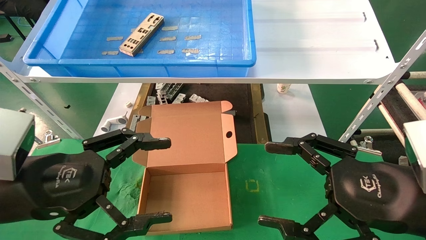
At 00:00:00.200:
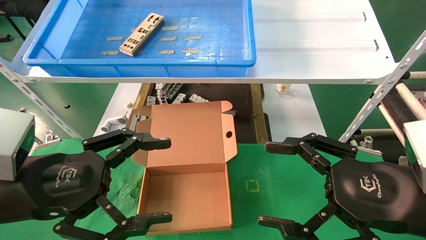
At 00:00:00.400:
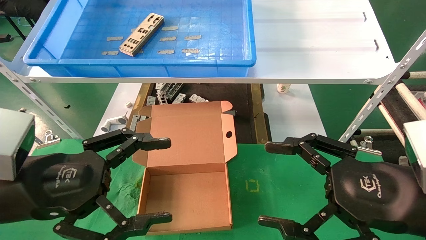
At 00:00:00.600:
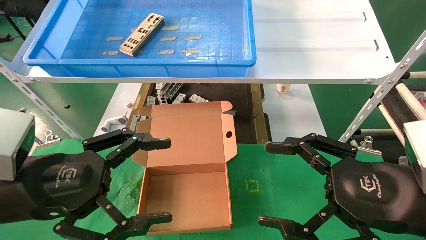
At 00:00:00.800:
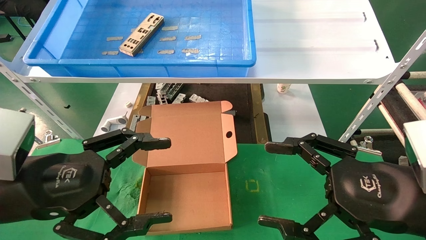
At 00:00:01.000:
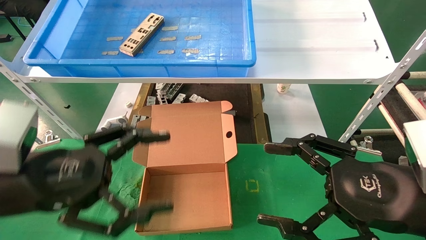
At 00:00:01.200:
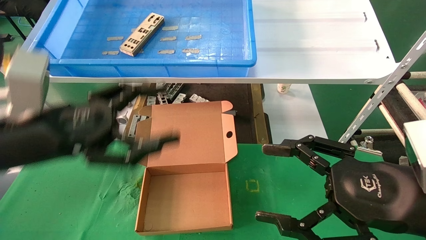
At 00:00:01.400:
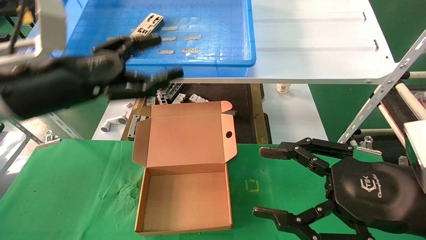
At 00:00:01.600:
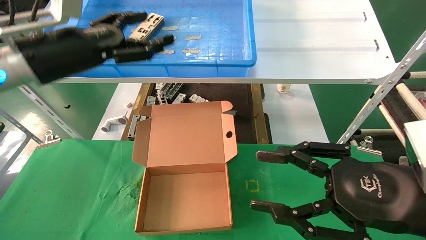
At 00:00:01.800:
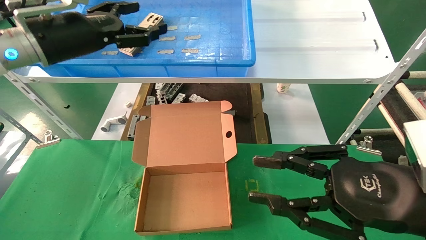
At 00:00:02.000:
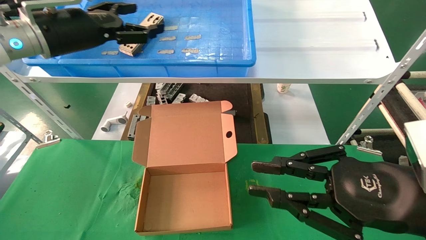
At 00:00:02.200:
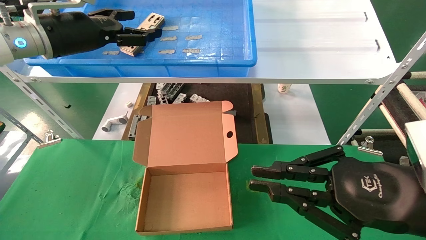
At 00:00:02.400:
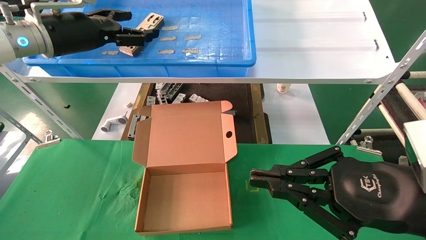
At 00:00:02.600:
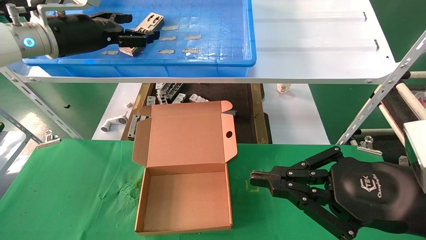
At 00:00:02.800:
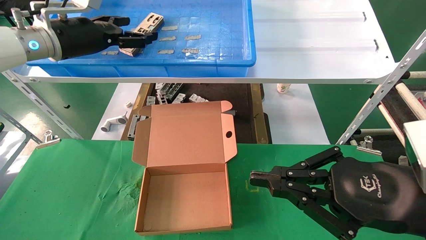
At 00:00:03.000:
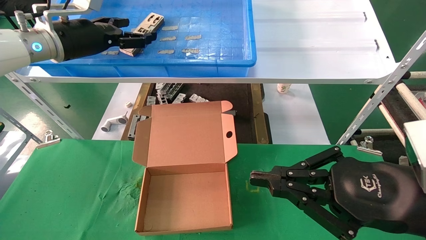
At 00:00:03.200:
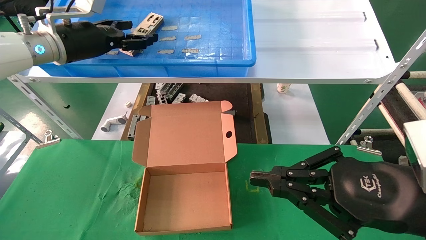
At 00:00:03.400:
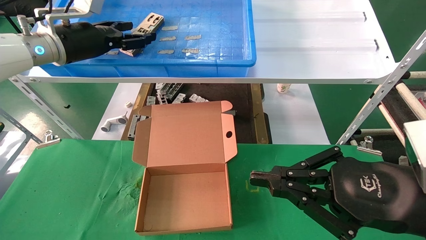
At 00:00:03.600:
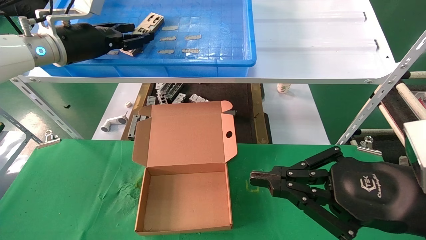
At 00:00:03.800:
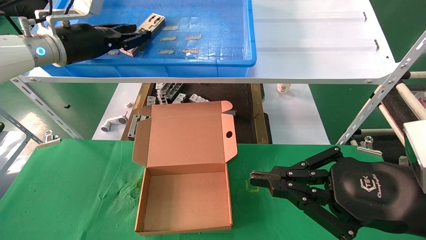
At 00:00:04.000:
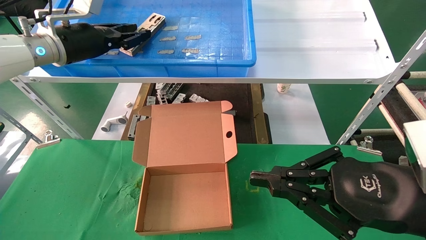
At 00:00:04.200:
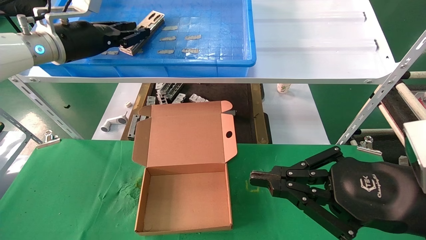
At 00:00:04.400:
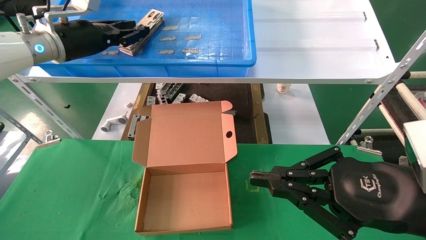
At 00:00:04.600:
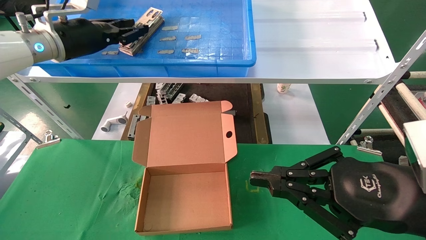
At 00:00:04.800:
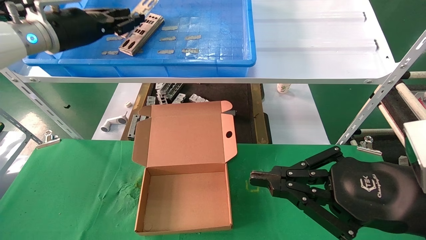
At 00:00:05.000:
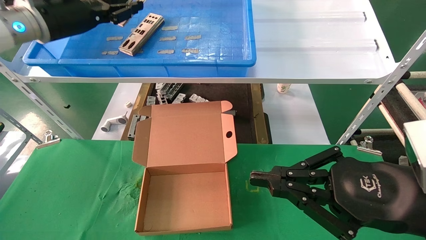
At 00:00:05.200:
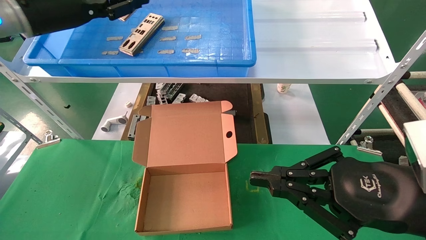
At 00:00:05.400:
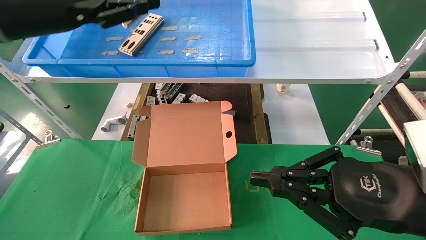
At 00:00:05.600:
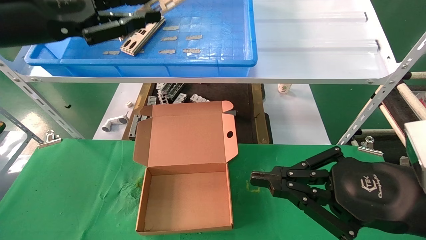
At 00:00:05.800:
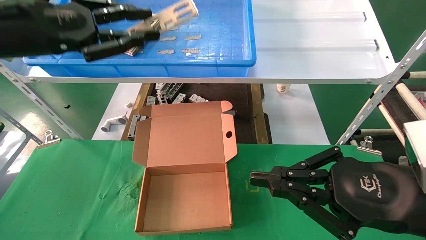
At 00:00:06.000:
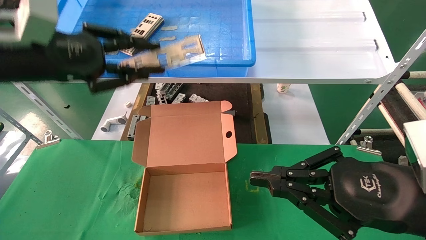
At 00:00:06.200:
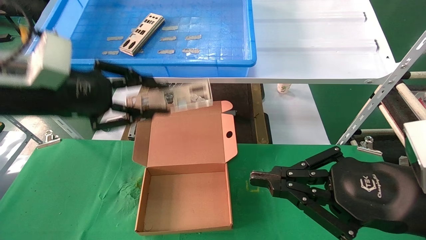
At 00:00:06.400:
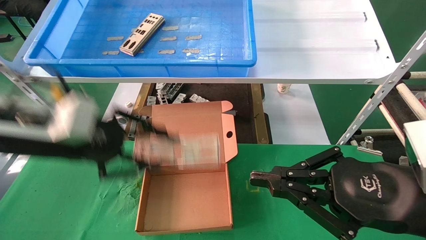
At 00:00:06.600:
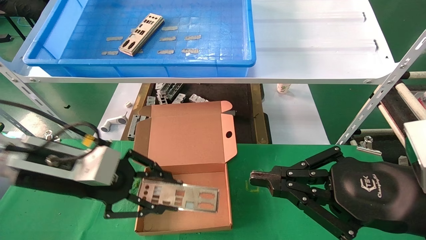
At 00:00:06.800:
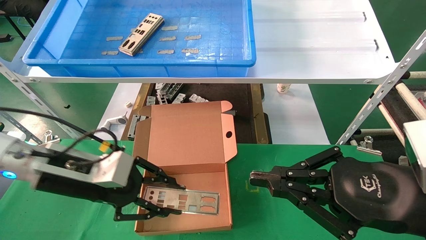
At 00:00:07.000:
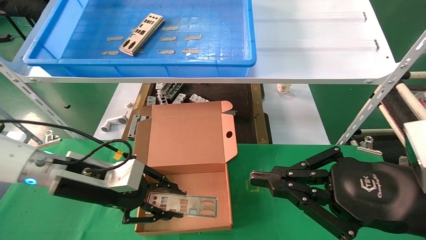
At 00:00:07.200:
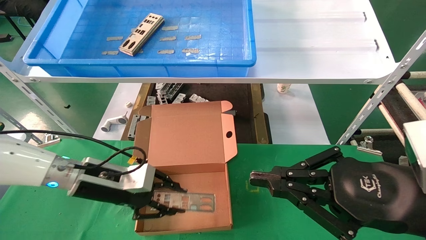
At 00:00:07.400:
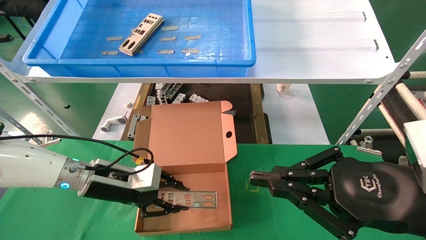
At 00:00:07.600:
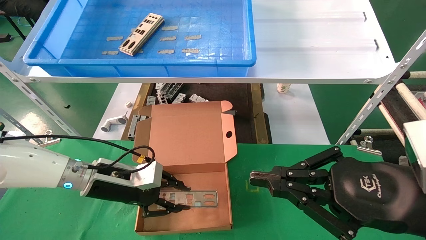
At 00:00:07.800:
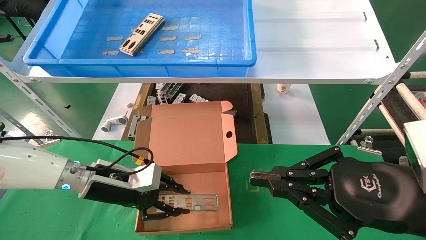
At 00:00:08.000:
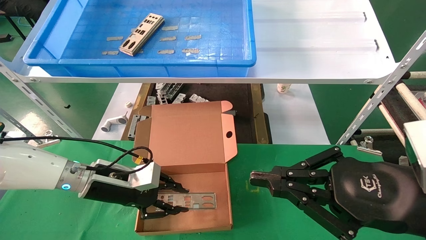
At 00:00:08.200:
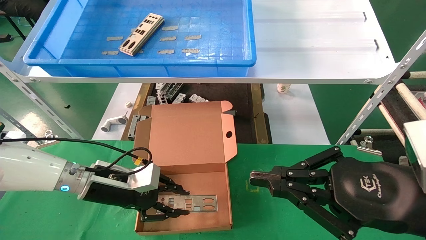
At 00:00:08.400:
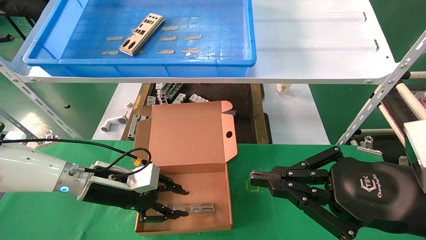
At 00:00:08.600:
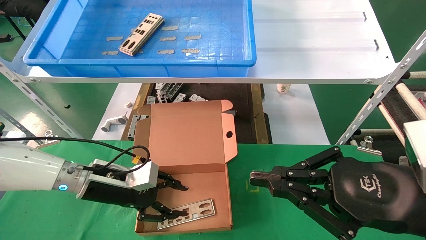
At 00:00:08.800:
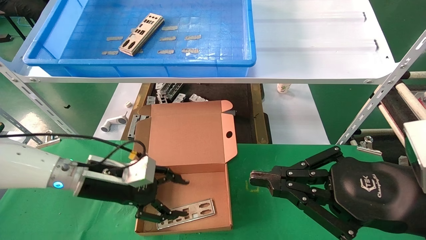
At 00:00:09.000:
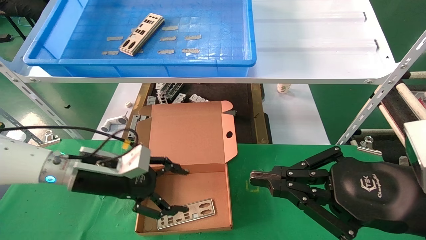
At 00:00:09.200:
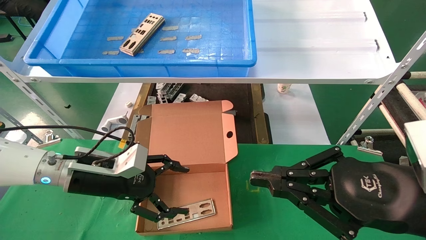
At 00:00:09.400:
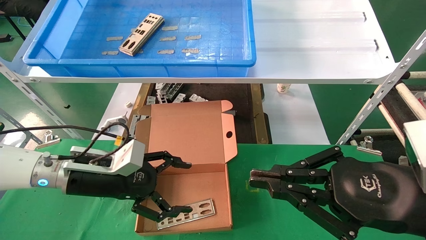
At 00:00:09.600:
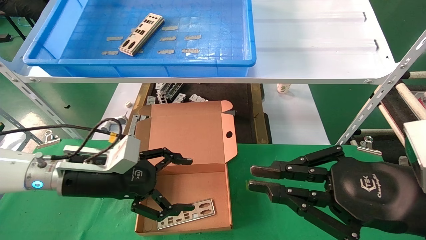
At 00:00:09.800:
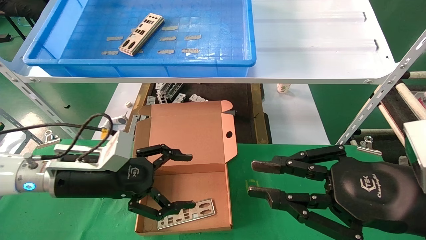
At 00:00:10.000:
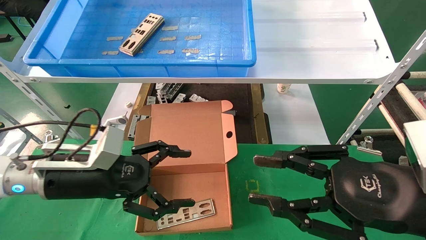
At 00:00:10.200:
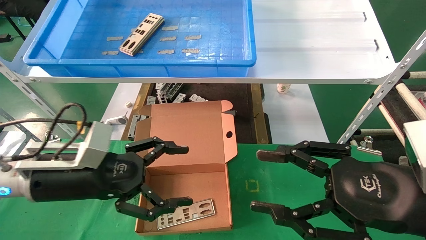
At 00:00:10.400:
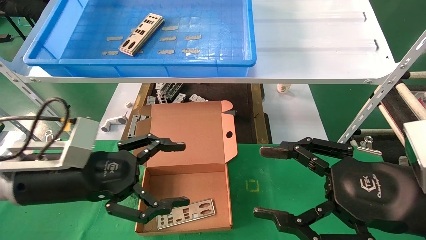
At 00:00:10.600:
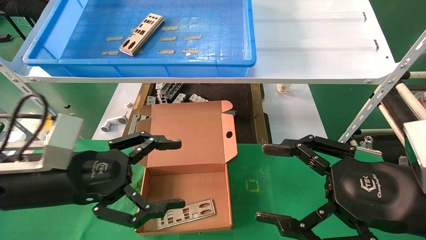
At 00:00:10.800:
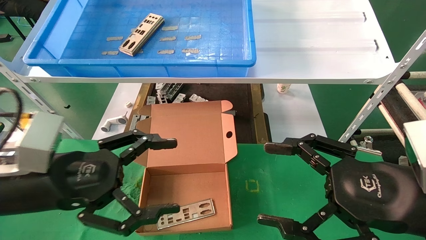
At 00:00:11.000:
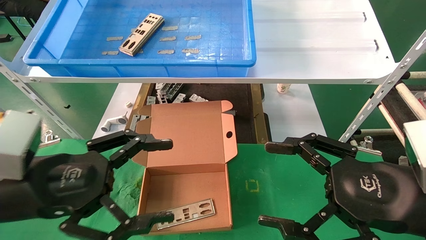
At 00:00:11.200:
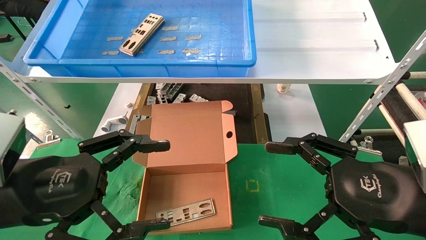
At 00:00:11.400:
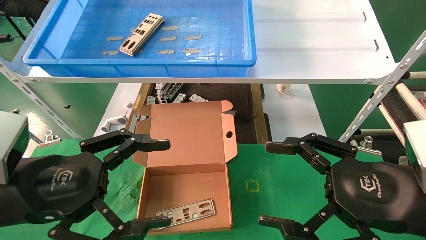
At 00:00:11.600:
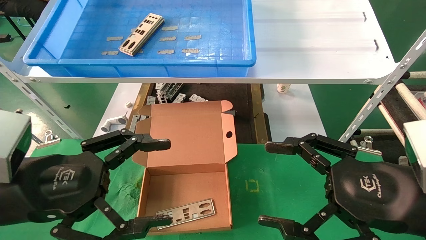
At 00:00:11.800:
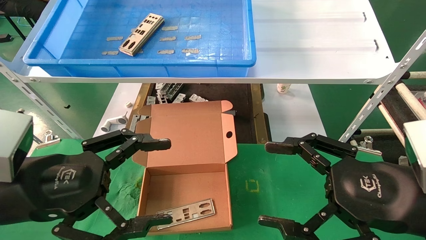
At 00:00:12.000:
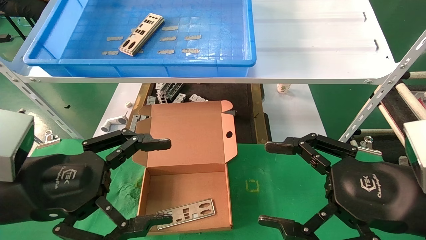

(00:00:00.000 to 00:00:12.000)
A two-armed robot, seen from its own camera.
Task of the whole recording: pick up the parts on the tray and put them in the cardboard box.
Step, 00:00:01.400 - 00:00:04.400: Pick up the IO bracket from the container box.
Step, 00:00:04.600 - 00:00:08.600: Place the IO bracket into the ingredient slot.
00:00:00.000 - 00:00:01.600: The left gripper travels forward and upward by approximately 20 cm.
00:00:01.600 - 00:00:03.000: The right gripper closes; the left gripper goes some 10 cm forward.
00:00:03.000 - 00:00:04.400: The left gripper closes.
00:00:04.400 - 00:00:06.000: The left gripper is displaced backward by approximately 15 cm.
00:00:06.000 - 00:00:07.600: The left gripper heads downward, covering about 25 cm.
00:00:07.600 - 00:00:09.000: The left gripper opens.
00:00:09.000 - 00:00:10.400: The left gripper moves backward, approximately 10 cm, and opens up, while the right gripper opens its fingers.
00:00:10.400 - 00:00:12.000: The right gripper opens up. Meanwhile the left gripper heads backward, covering some 5 cm.

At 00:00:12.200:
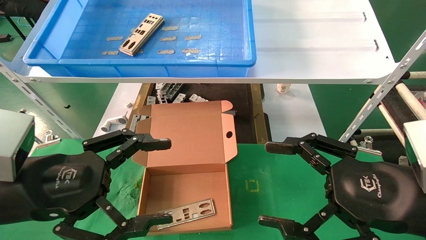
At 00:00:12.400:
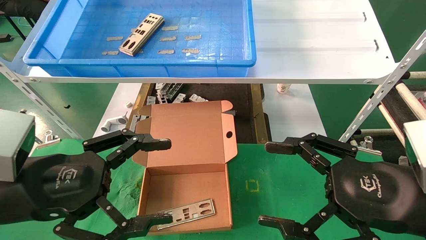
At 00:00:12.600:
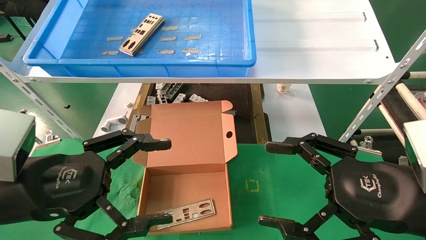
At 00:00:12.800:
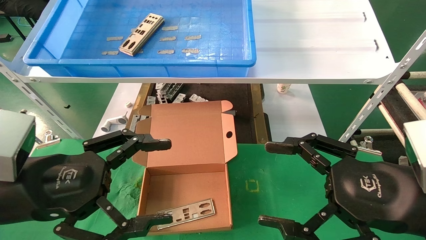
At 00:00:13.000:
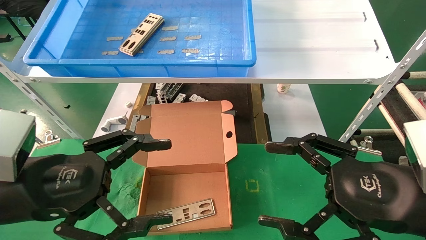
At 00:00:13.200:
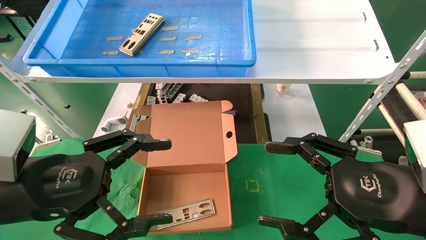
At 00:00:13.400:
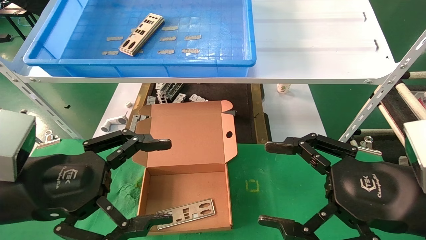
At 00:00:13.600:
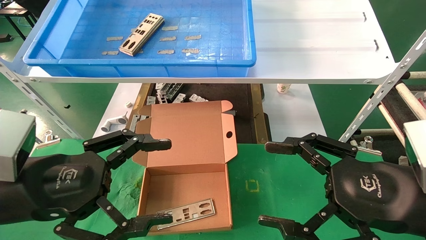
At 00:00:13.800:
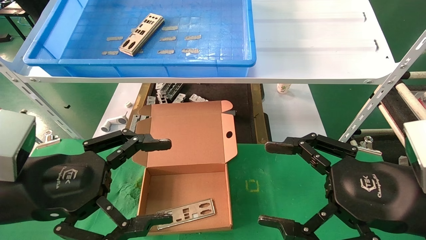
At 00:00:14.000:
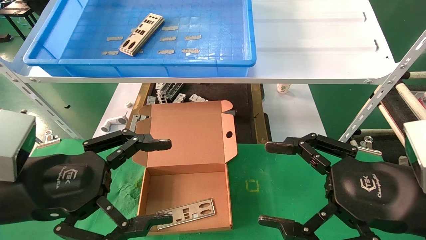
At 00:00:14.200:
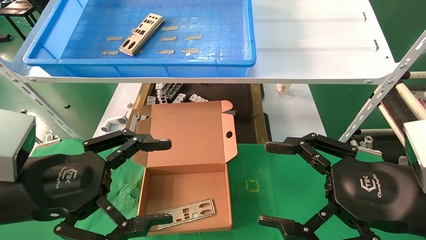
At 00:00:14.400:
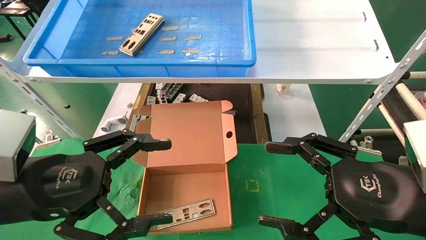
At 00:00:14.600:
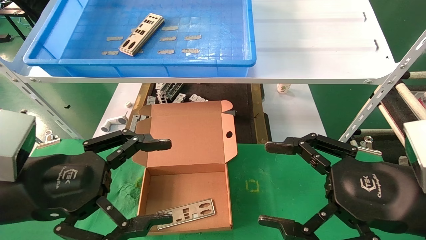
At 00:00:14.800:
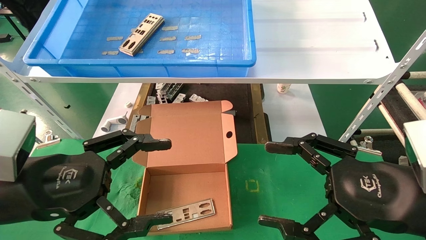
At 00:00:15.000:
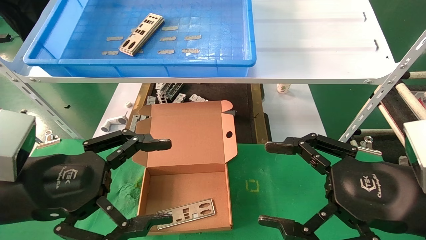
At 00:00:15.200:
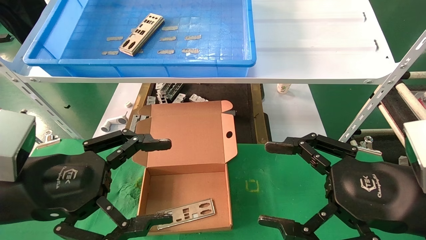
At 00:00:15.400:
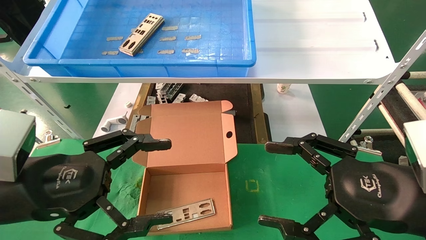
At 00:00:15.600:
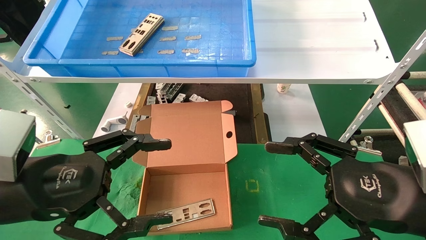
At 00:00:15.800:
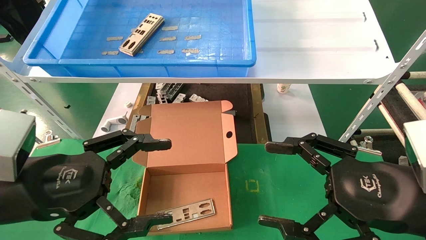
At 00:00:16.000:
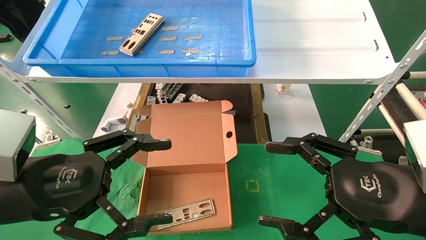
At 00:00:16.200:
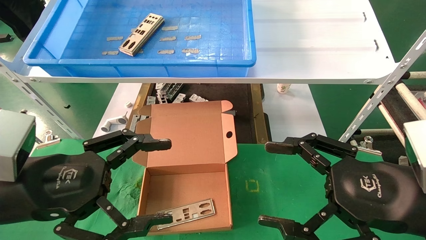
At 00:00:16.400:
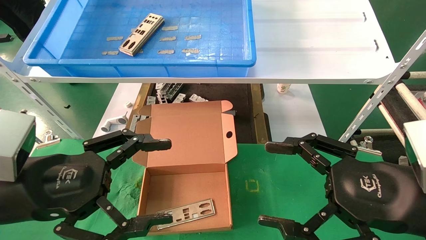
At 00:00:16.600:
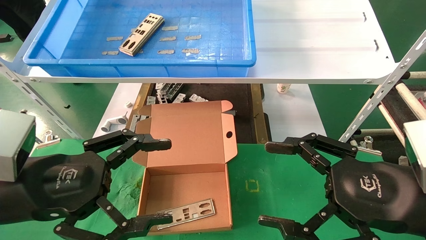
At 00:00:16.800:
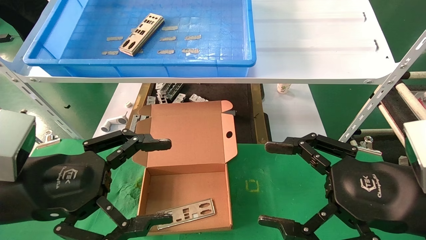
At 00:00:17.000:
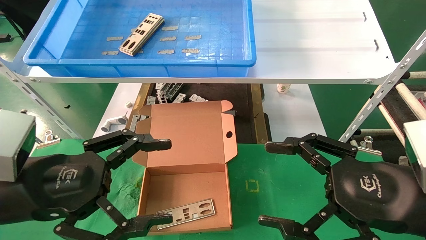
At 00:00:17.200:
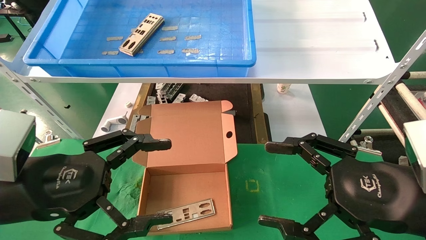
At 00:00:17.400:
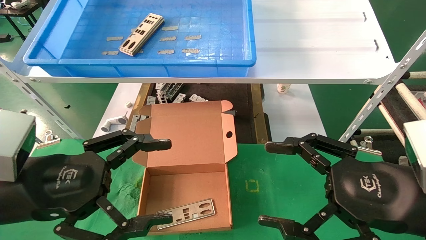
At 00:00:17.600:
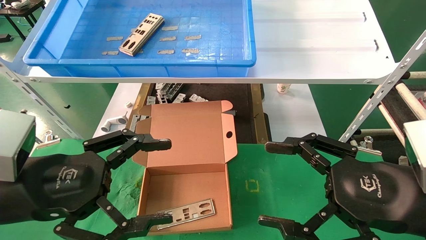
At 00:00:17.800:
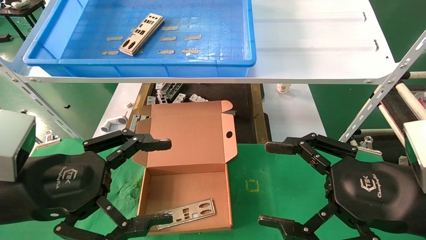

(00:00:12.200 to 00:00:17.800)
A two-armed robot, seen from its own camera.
Task of the whole recording: pick up the parts on the tray and put them in the cardboard box.
00:00:12.200 - 00:00:17.800: Both grippers stay put.
